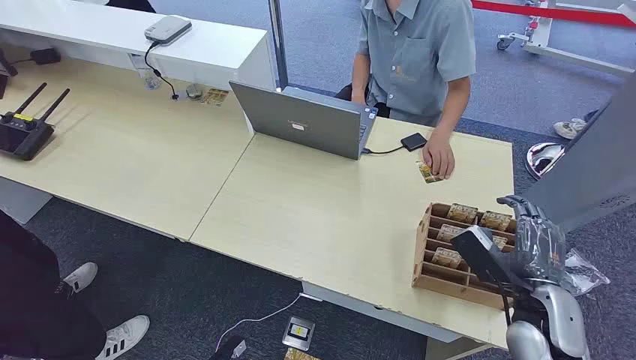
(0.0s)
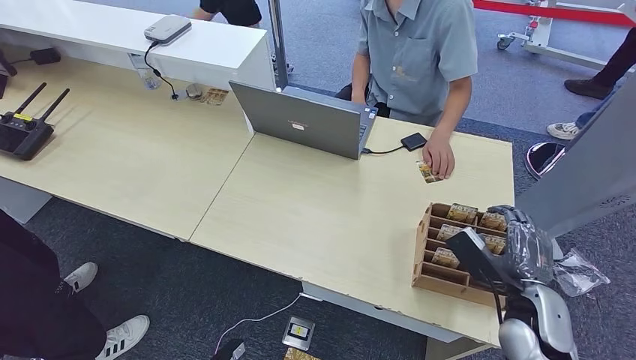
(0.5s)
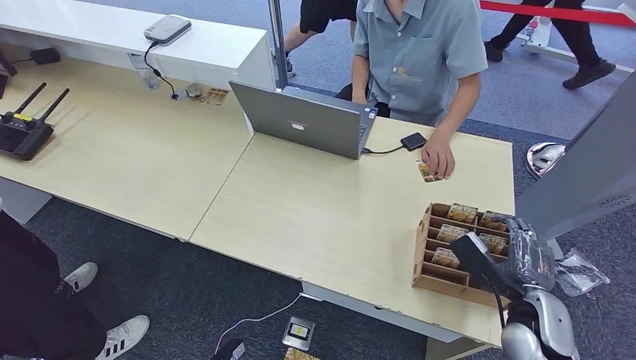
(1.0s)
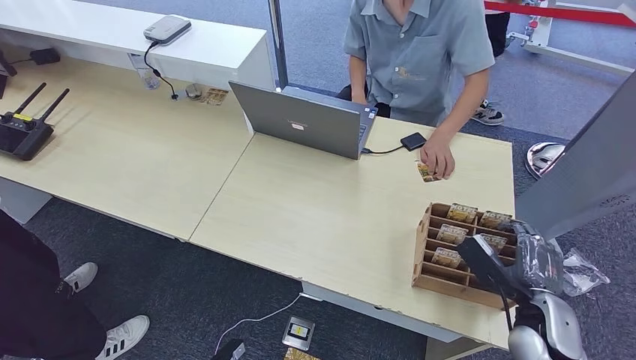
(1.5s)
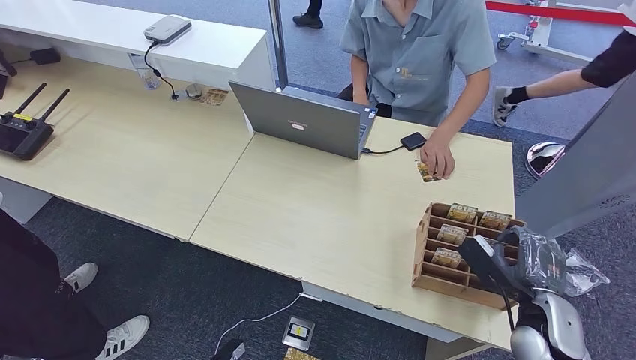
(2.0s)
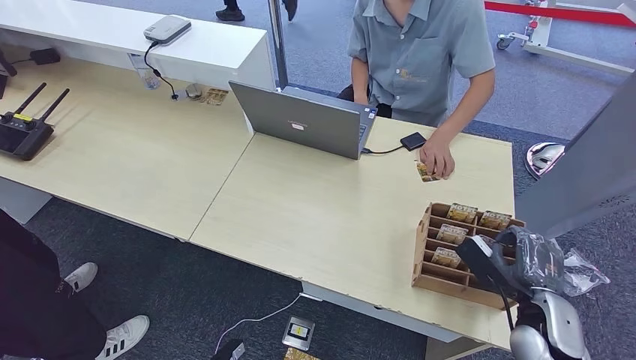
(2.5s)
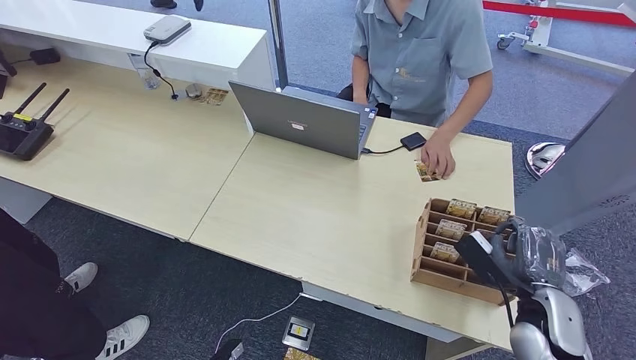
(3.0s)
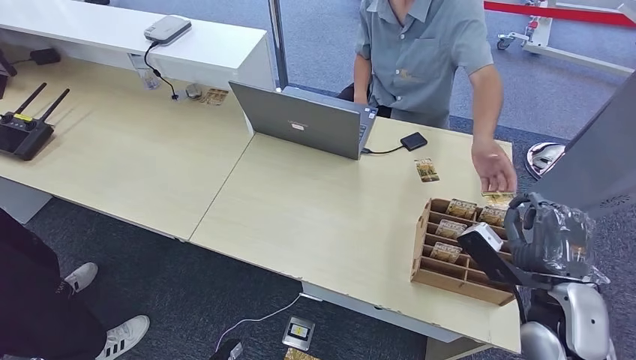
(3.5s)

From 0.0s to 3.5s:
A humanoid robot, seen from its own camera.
Step, from 0.0s to 2.5s: Pick up the key card from the card box.
From 2.0s to 3.5s: The right hand moves upward, approximately 5 cm.
